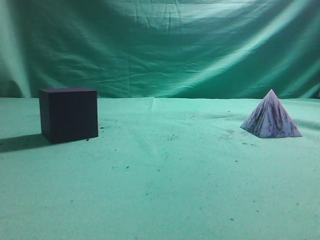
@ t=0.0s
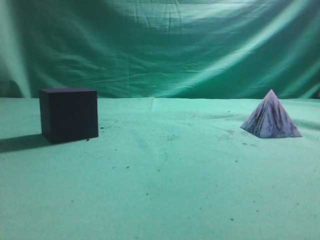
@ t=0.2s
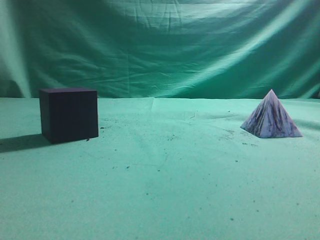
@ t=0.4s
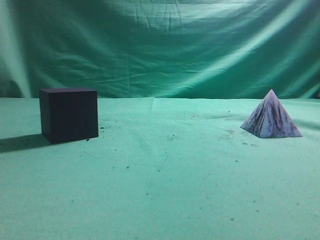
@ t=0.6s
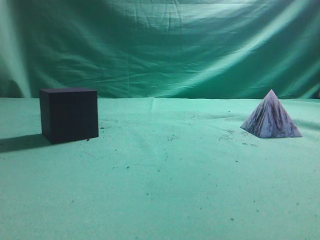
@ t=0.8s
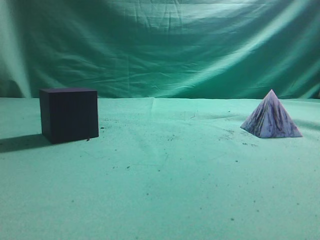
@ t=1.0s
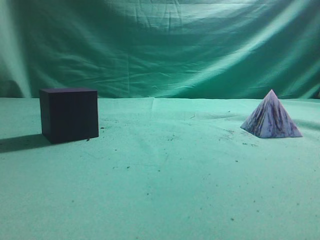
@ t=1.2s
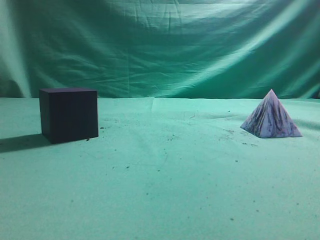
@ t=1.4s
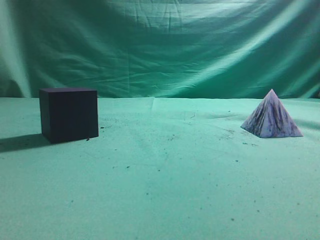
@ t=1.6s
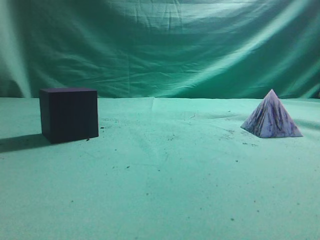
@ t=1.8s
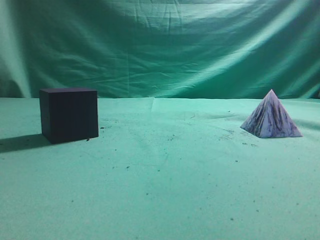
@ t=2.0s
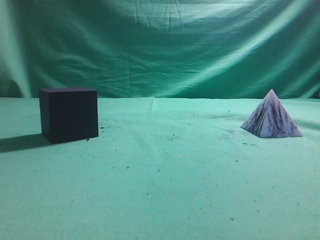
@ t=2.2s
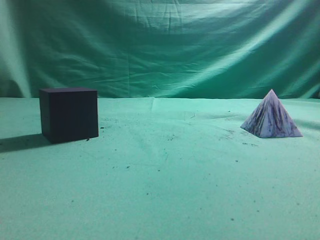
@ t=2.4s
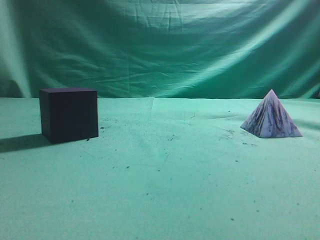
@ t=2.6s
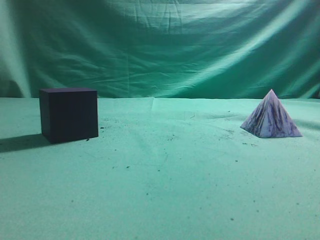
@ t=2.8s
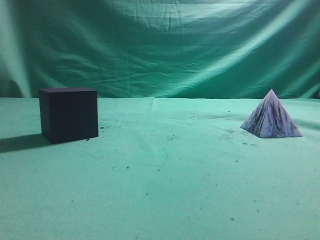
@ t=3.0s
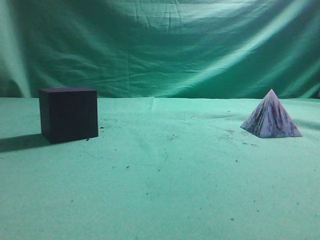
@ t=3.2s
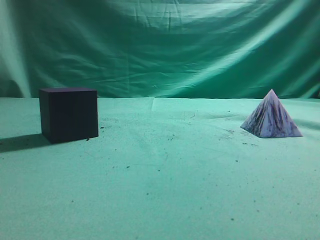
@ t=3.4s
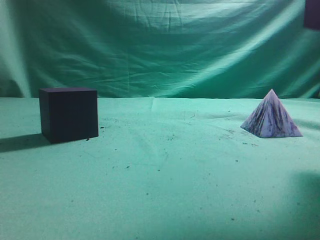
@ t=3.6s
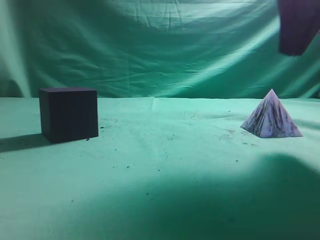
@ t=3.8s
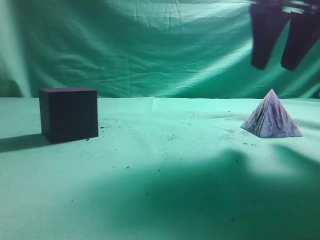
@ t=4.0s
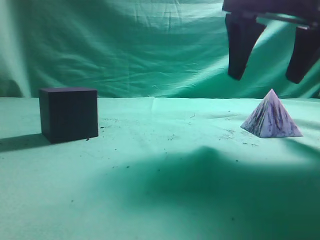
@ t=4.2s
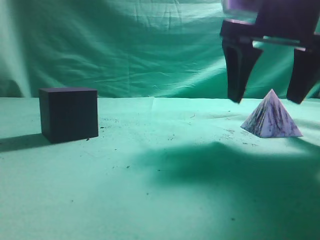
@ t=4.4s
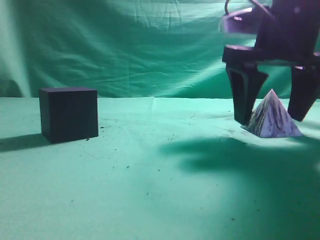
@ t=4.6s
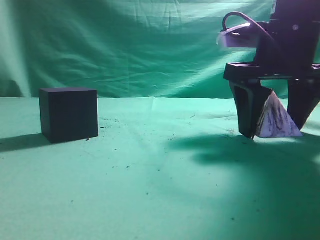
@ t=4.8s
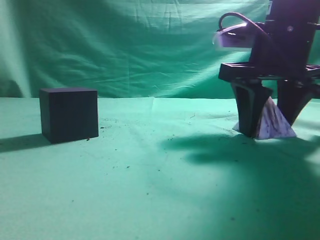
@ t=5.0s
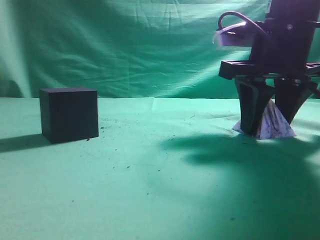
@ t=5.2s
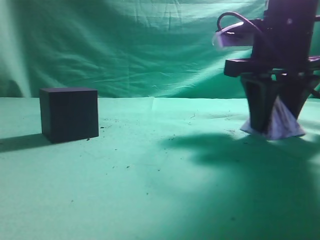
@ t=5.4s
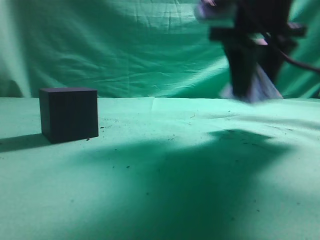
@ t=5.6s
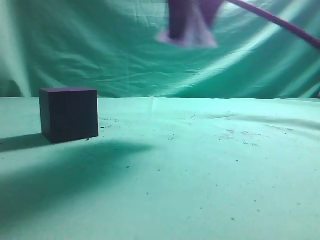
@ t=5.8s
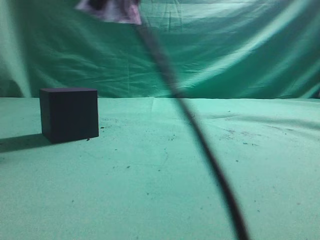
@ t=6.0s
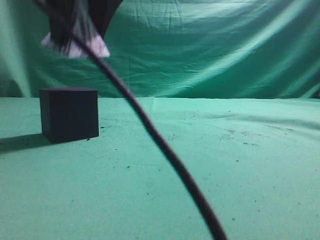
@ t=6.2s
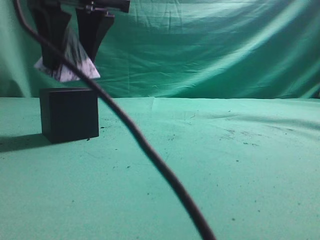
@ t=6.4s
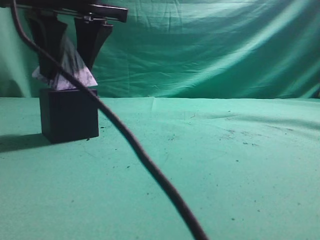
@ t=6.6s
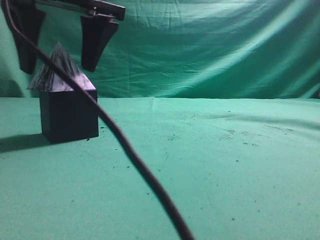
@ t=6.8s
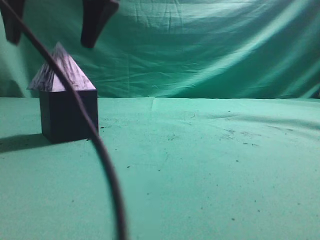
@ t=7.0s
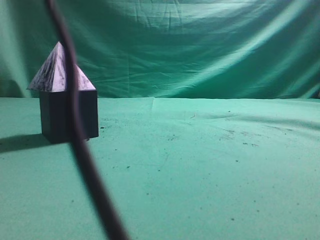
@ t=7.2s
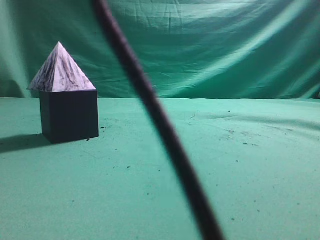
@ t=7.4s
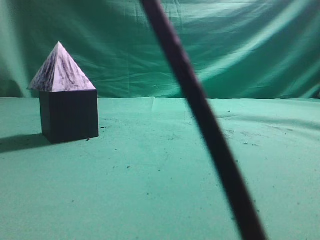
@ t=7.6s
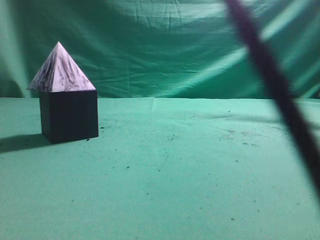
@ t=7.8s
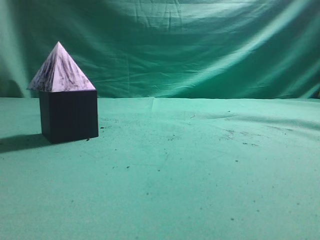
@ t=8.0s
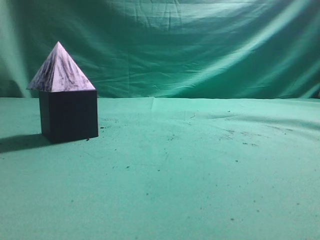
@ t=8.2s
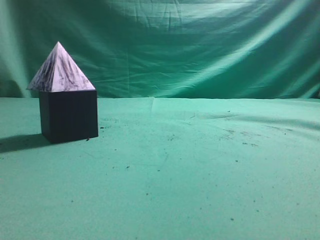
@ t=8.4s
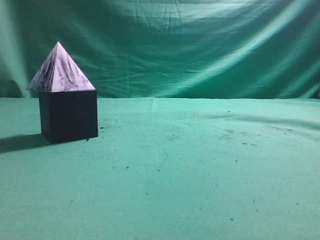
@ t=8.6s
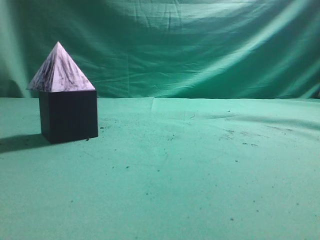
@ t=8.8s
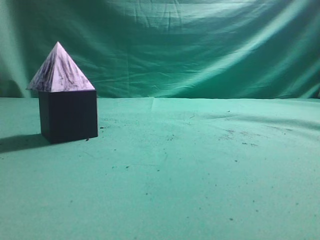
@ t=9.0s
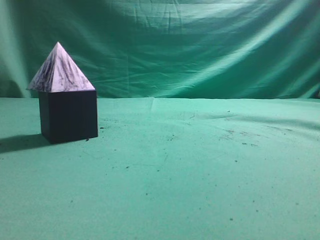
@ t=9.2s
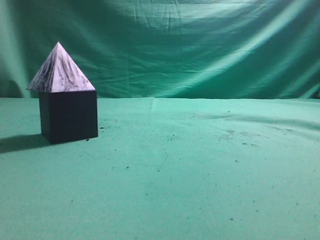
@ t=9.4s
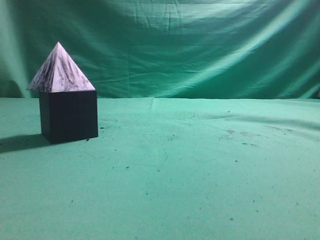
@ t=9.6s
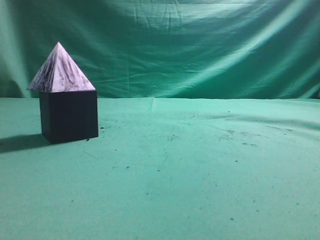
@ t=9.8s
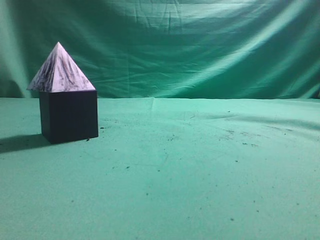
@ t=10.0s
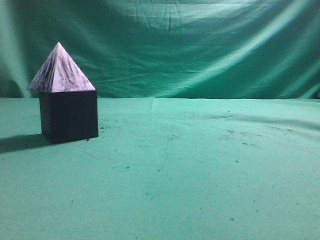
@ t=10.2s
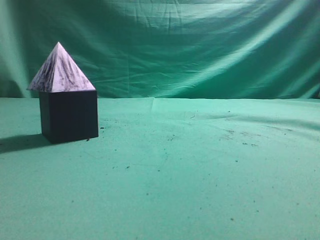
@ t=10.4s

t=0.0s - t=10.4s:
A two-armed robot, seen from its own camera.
Task of the whole recording: pick up the square pyramid from the table and place it on the cube block.
Step, t=0.0s - t=5.6s: Grasp the triangular block.
Step, t=5.8s - t=7.0s: Place the block onto the cube-shaped block.
t=3.0s - t=4.4s: The right gripper travels forward, downward and to the left by roughly 25 cm, and opens up.
t=4.4s - t=6.0s: The right gripper is displaced to the left and upward by some 20 cm, and closes up.
t=6.0s - t=7.4s: The right gripper shifts approximately 10 cm upward, and closes up.
t=7.4s - t=9.0s: The right gripper travels to the right and backward by about 35 cm.
